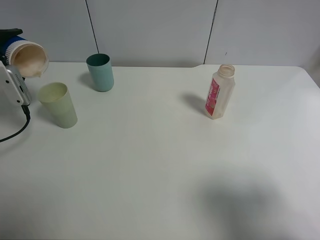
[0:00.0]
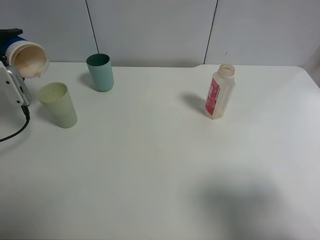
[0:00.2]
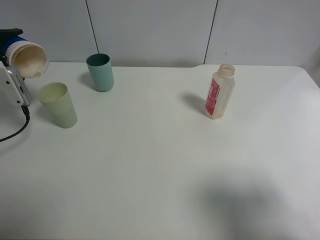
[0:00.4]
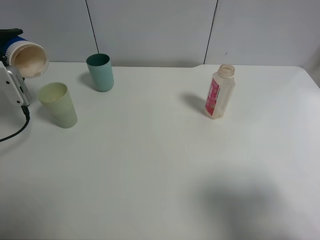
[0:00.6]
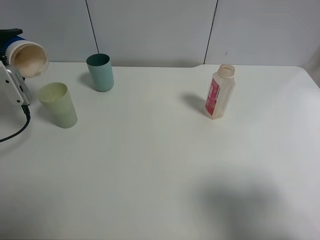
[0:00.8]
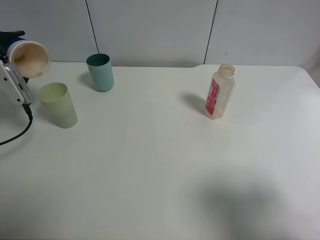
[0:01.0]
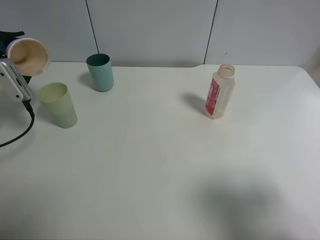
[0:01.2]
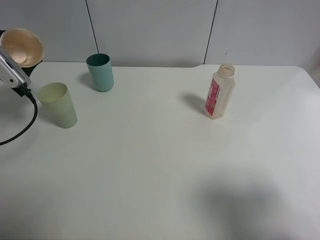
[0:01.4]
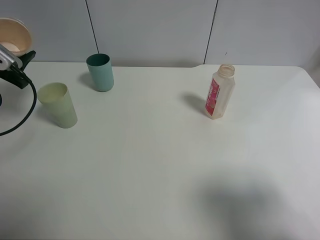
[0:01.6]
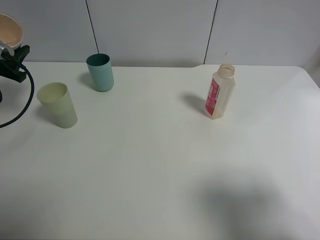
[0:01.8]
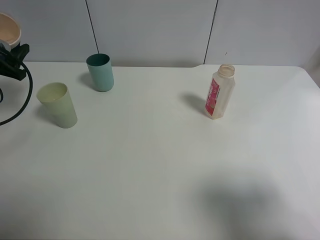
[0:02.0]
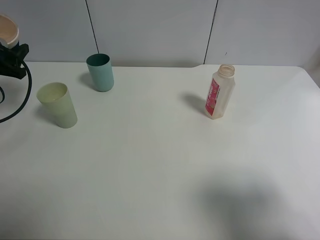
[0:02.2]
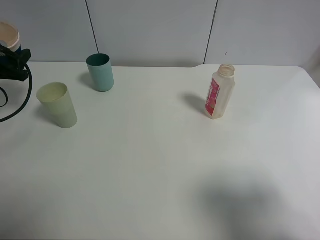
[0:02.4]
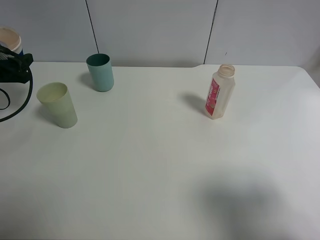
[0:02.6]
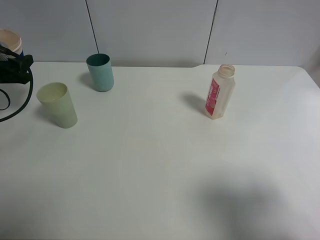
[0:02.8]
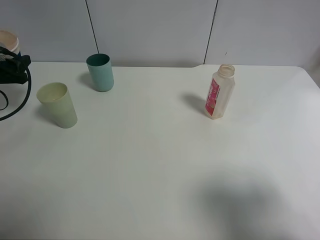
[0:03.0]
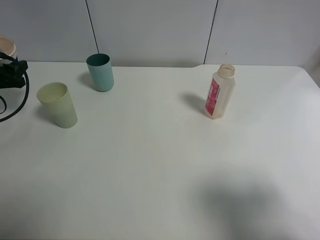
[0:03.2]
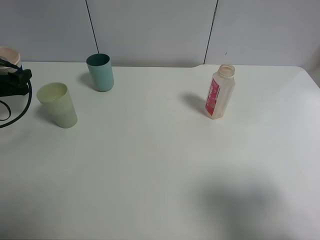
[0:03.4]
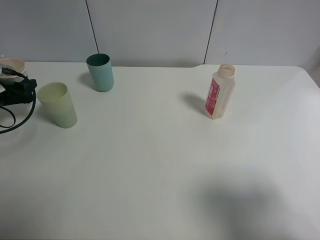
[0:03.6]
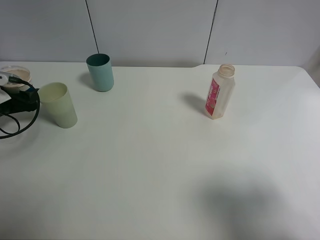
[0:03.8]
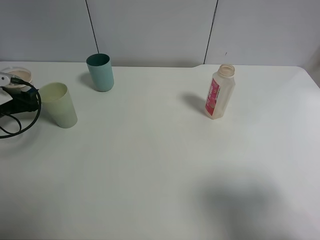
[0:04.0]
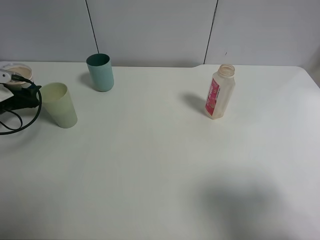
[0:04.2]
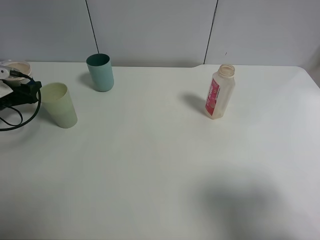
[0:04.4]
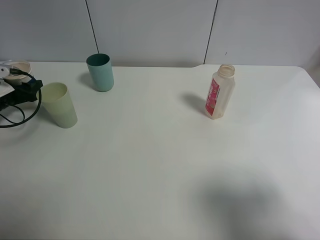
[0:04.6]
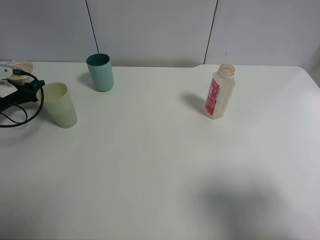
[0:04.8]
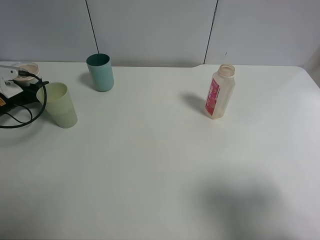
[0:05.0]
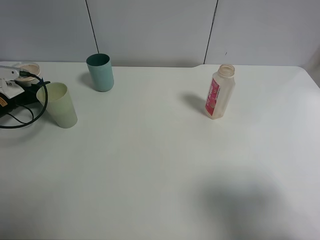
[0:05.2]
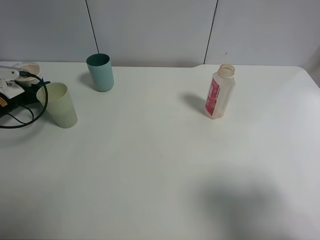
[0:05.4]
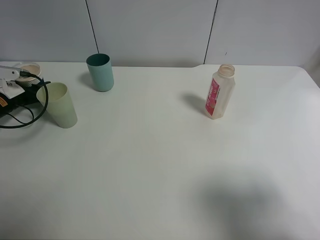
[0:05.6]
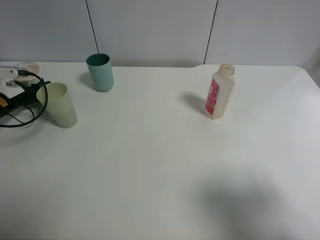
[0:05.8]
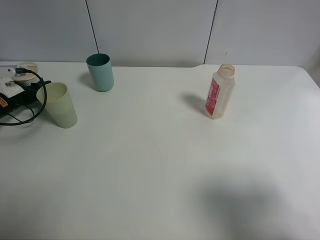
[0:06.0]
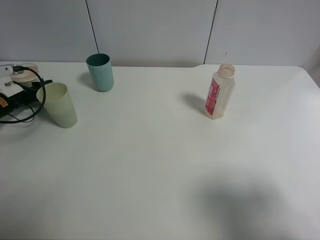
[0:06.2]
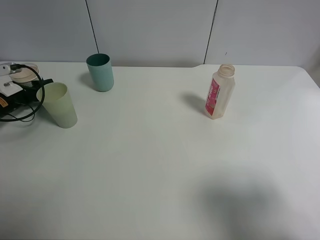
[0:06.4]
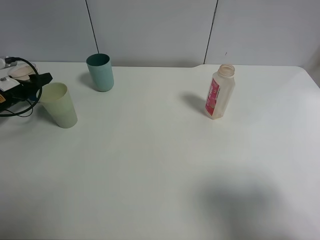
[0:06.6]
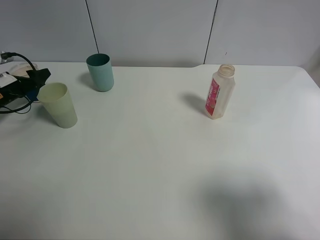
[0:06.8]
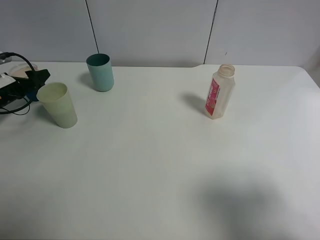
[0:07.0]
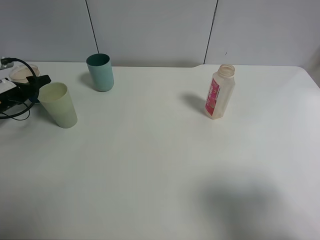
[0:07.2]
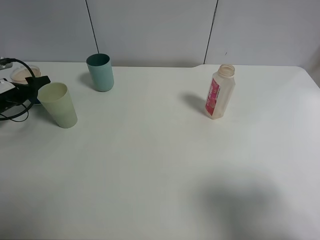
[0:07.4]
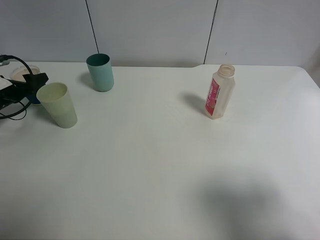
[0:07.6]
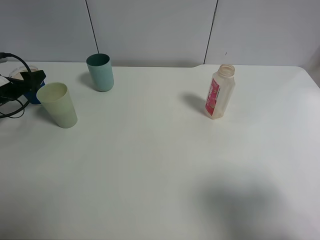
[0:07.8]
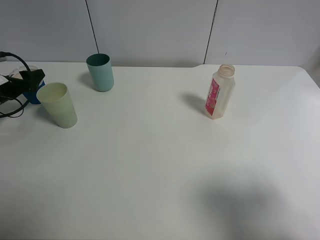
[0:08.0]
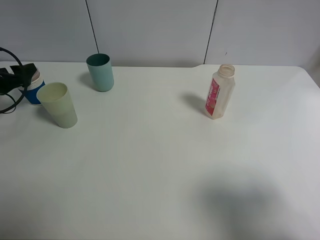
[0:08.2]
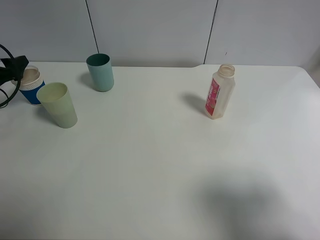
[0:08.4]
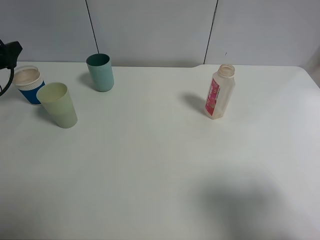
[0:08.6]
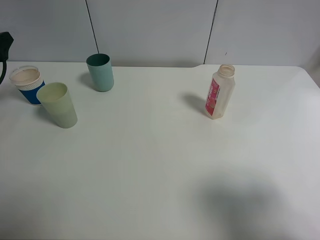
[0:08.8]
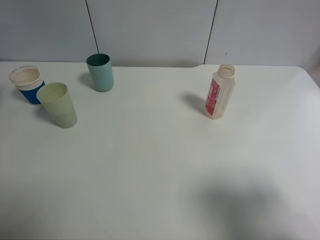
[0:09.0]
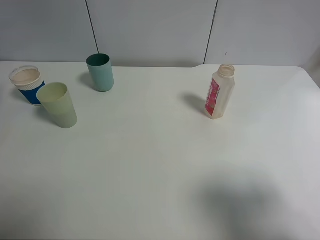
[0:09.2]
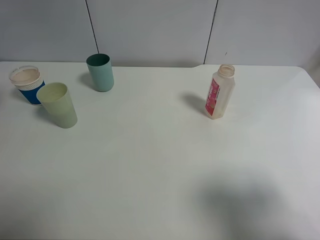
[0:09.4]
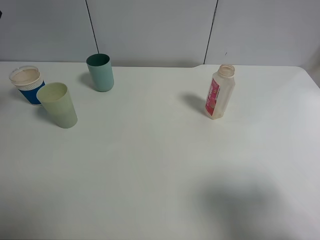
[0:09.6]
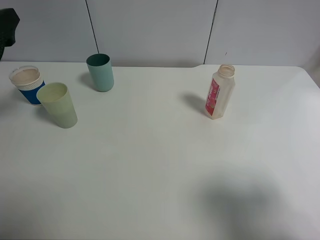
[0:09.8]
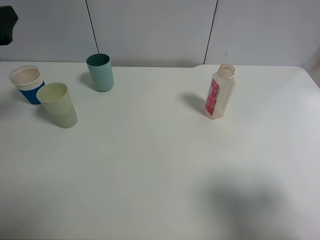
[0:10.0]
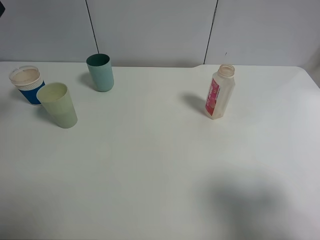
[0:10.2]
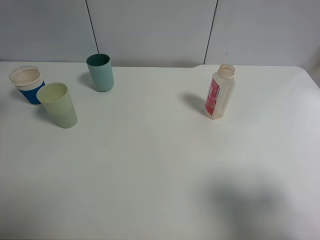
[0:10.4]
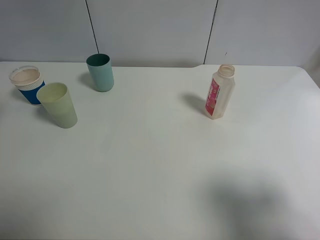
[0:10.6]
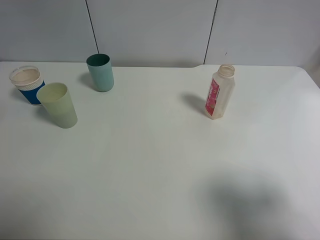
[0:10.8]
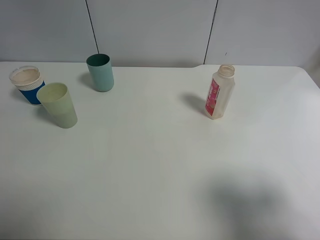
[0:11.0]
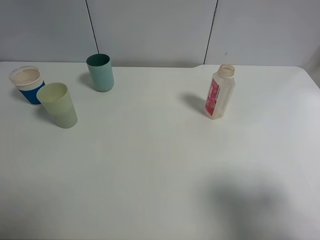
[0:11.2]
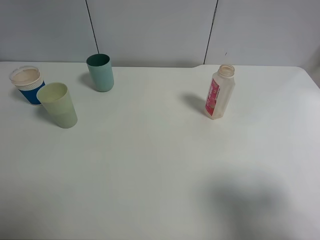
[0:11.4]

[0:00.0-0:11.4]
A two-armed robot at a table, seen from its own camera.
Task of the whole recording: use a clamp to hold the bottle of the drink, pour the beverage into a random cup, then clamp the cup containing the drink and pour the drink into another random cup.
Step, 0:01.6 to 0:08.2: Place the paper cup on the table with left gripper.
0:02.8 to 0:04.2: The left gripper shifts approximately 10 cm downward.
0:04.2 to 0:05.6: The left gripper changes place by some 5 cm.
0:05.6 to 0:07.2: The left gripper opens.
0:07.2 to 0:08.6: The left gripper travels upward by some 5 cm.
0:08.6 to 0:10.0: The left gripper is displaced upward, to the right and backward by about 20 cm.
0:10.0 to 0:11.4: The left gripper is displaced backward by about 15 cm.

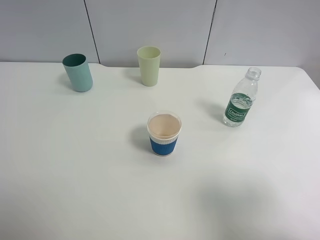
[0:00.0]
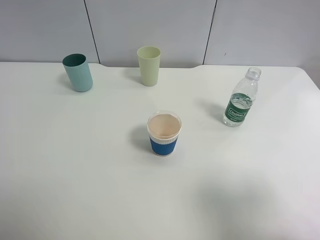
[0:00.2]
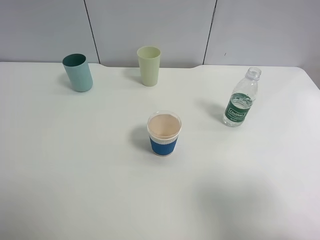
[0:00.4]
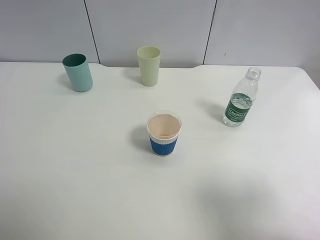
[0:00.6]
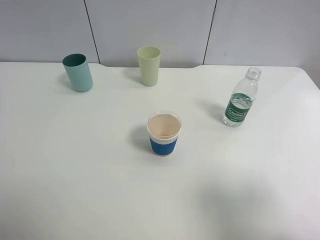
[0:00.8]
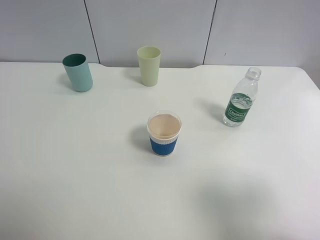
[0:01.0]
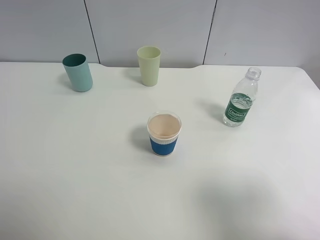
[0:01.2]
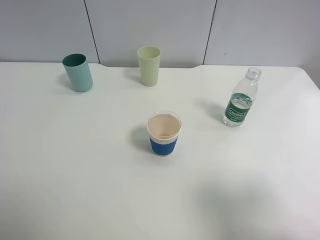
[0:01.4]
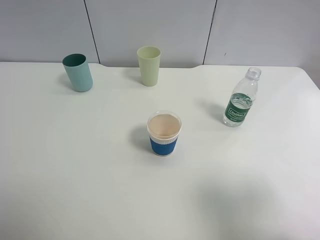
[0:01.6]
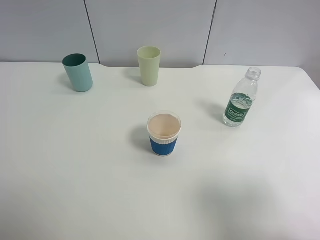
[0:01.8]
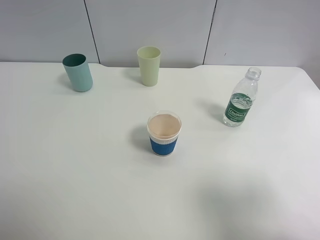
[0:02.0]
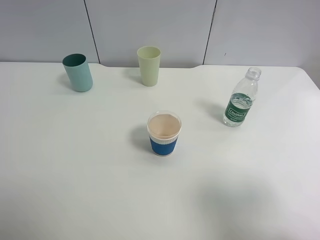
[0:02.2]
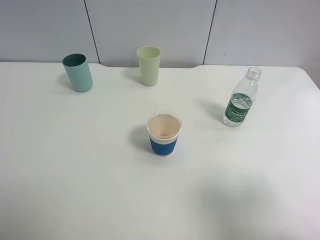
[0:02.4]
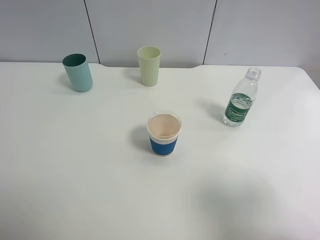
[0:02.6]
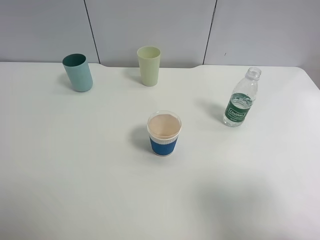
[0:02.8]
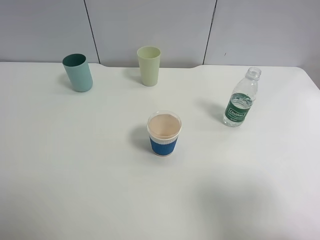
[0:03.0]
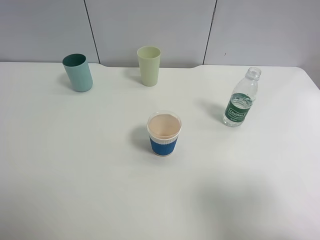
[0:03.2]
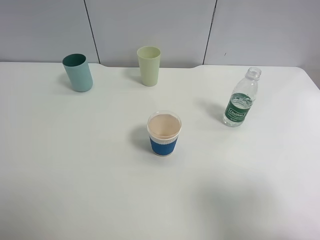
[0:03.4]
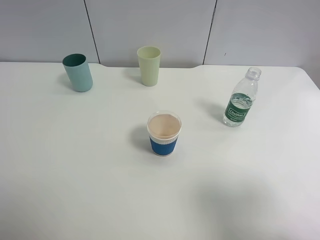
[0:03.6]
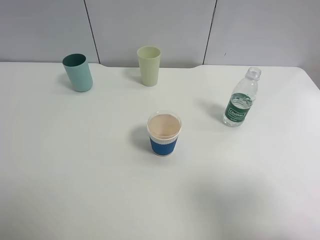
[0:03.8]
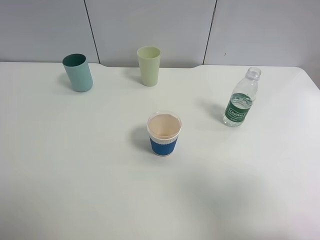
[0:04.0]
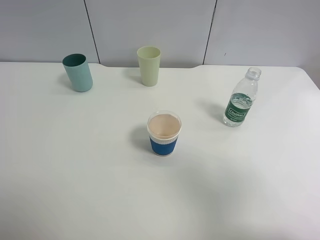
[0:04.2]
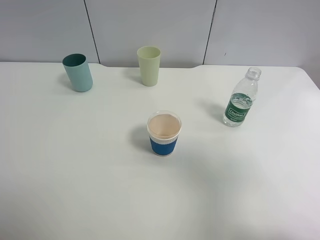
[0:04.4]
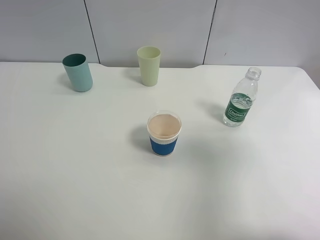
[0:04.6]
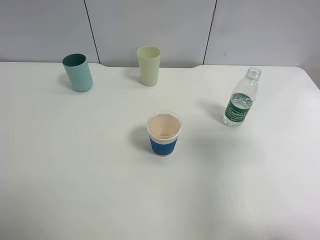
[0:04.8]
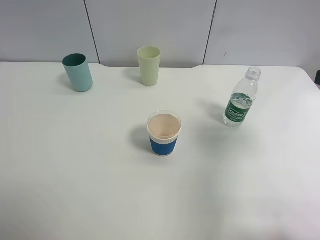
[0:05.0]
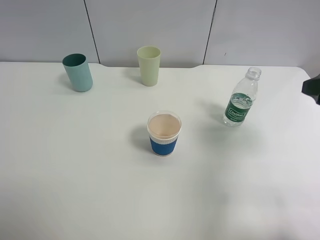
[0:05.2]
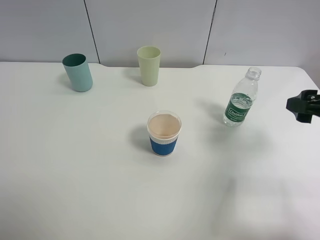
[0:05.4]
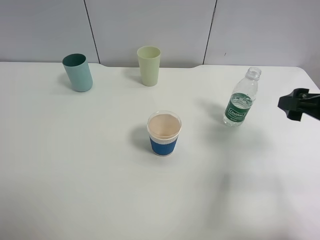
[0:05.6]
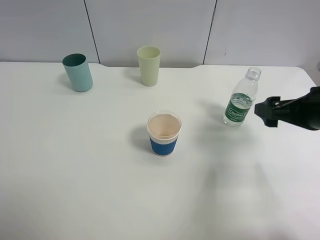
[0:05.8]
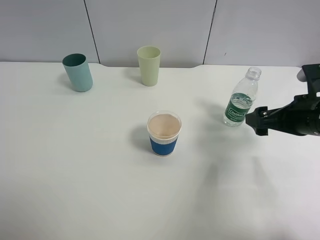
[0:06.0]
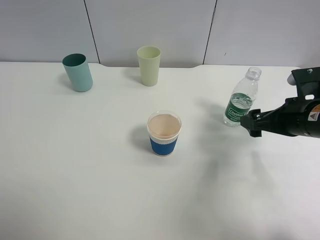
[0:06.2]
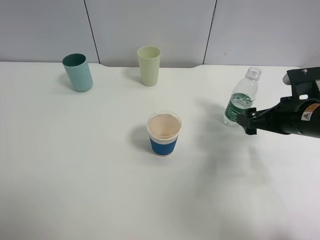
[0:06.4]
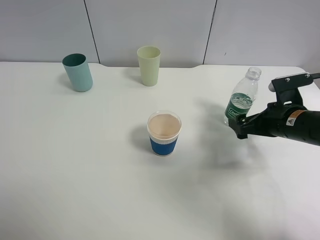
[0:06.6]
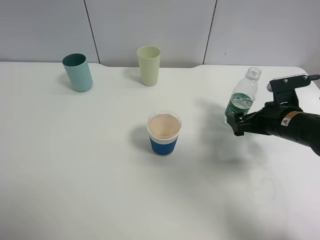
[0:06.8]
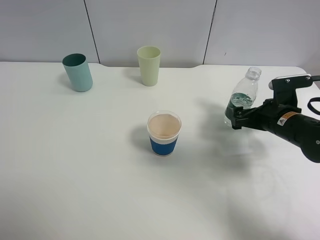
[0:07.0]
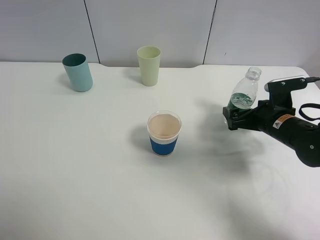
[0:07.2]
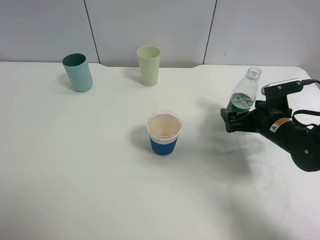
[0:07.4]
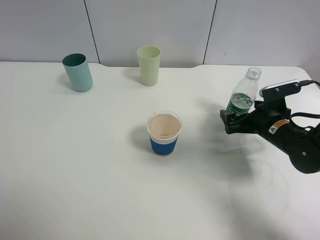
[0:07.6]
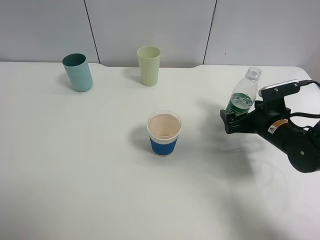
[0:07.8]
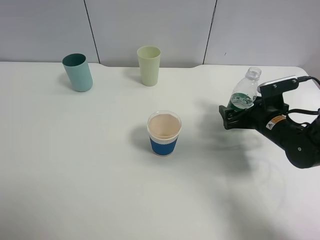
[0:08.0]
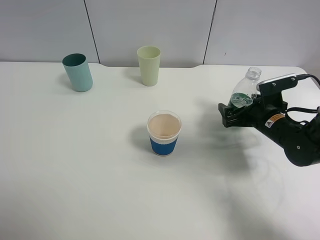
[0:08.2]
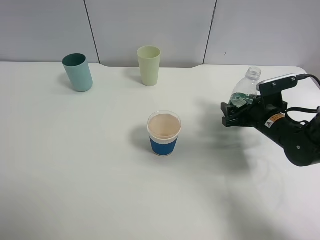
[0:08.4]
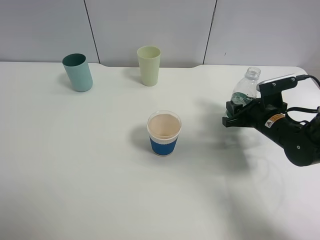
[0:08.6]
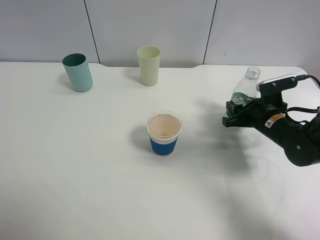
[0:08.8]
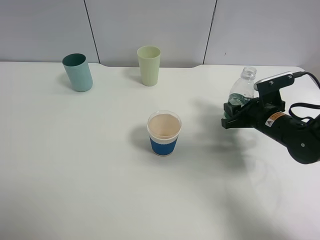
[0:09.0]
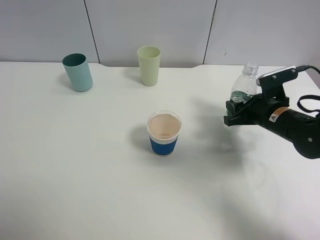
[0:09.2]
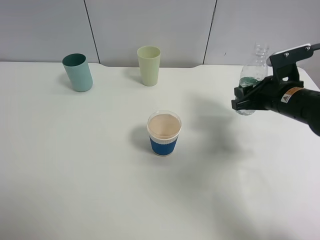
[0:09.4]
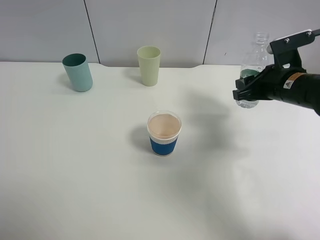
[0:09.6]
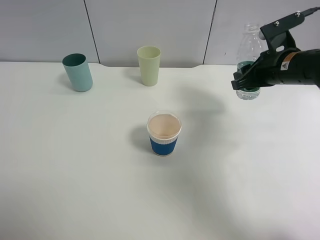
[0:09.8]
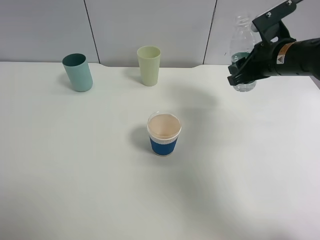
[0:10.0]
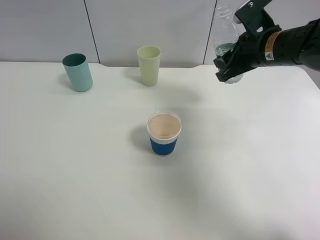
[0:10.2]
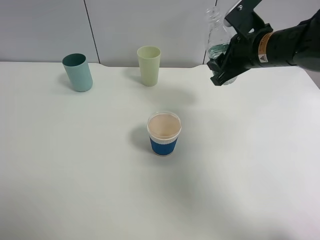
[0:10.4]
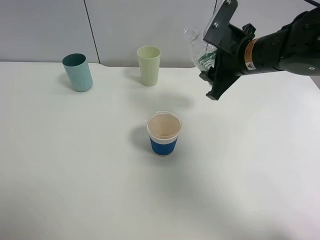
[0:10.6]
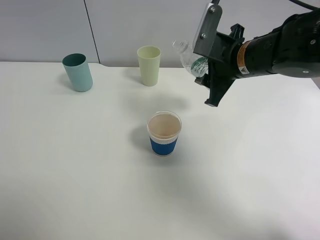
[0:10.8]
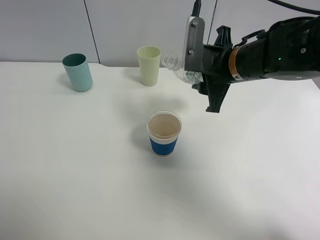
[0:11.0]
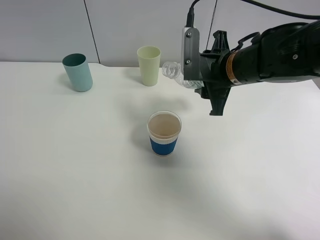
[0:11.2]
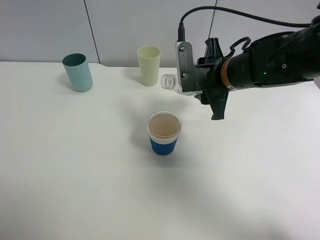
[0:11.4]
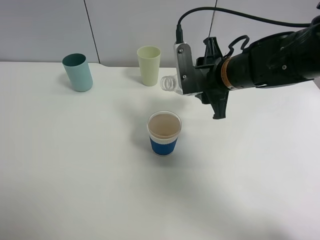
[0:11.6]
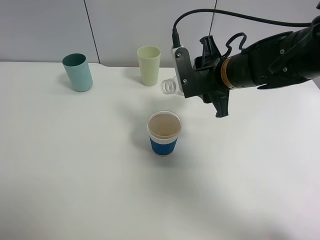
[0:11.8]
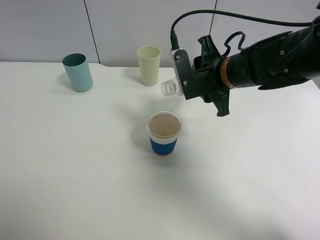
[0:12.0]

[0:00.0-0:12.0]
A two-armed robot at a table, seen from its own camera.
Task of the whole recording: use a clamp to hold the bottle of the drink, pour the beverage into a random cup, then clamp the cup containing the drink and pour the drink into another random cup.
Step, 0:00.0 to 0:09.4: Pick up the water bottle with right gripper.
0:00.0 to 0:03.0: Neither gripper changes place.
0:03.0 to 0:04.4: The right gripper changes place by approximately 5 cm.
0:04.4 to 0:06.0: The right gripper heads forward and downward, covering some 20 cm.
0:06.0 to 0:07.6: The right gripper goes about 10 cm downward and forward.
0:07.6 to 0:09.0: The right gripper closes up.
0:09.0 to 0:10.4: The right gripper moves upward and to the left, approximately 15 cm.
0:10.4 to 0:12.0: The right gripper goes roughly 5 cm to the left.
